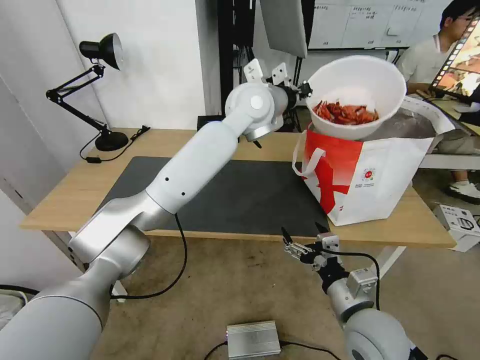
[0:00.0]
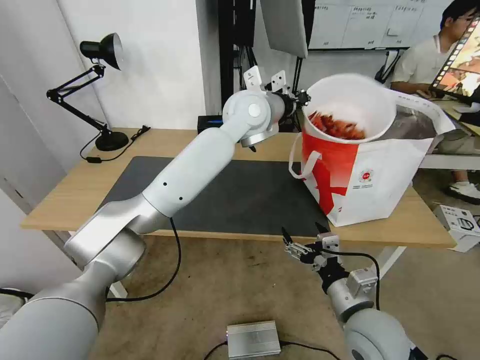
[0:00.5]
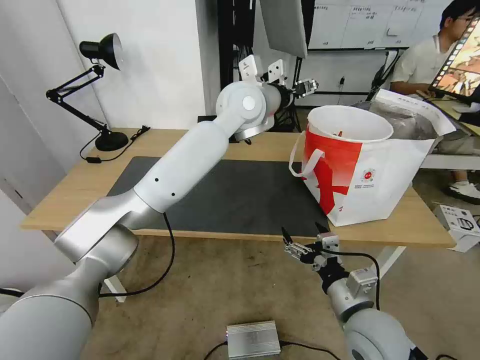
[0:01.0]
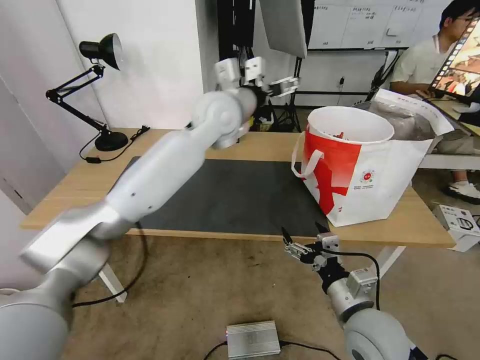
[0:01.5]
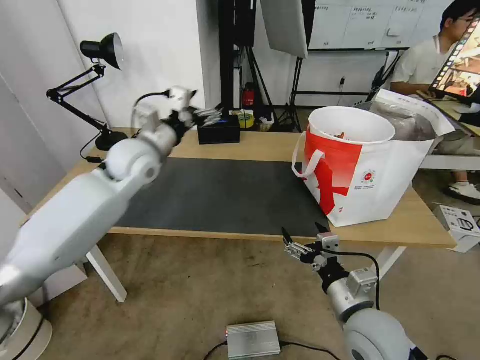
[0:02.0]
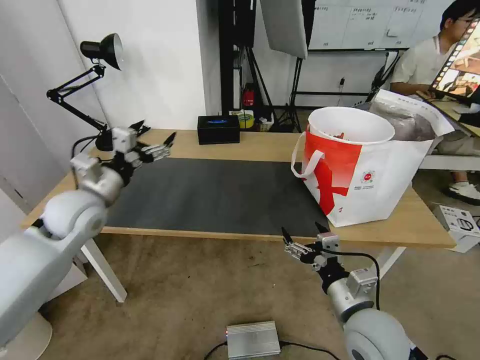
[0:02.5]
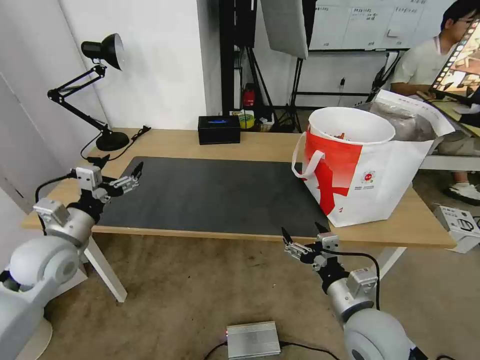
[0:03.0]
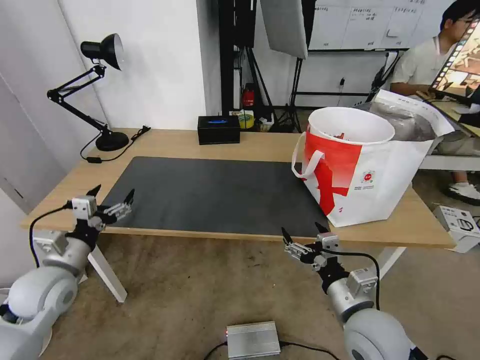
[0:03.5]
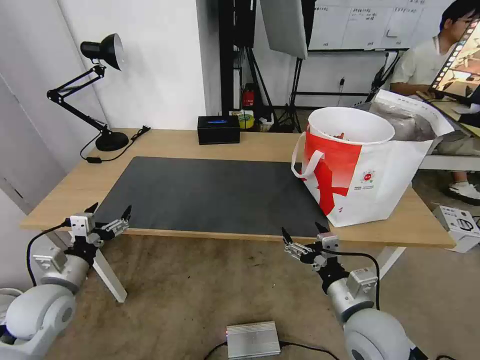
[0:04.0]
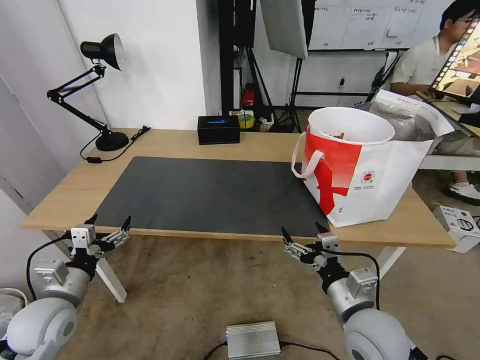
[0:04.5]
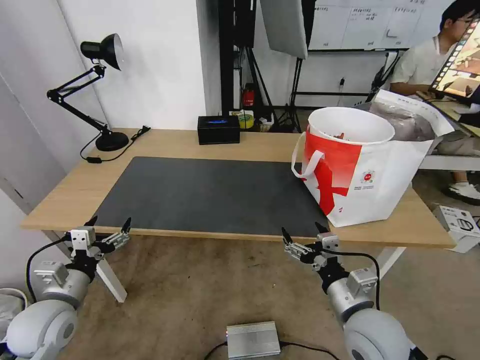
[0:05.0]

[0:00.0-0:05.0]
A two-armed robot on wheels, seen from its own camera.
Task of the whole recording: Pick up the trash from the table and place it into the takeout bag.
0:00.0 to 0:02.5: The left gripper moves to the left, downward and backward, roughly 40 cm, and opens.
0:02.5 to 0:05.0: The left gripper heads backward and downward, covering some 20 cm.
